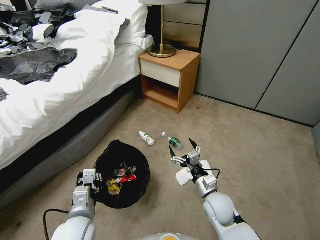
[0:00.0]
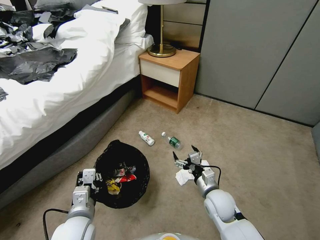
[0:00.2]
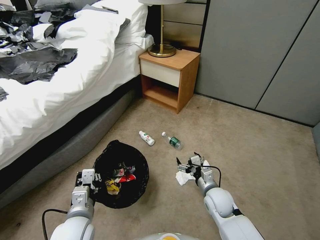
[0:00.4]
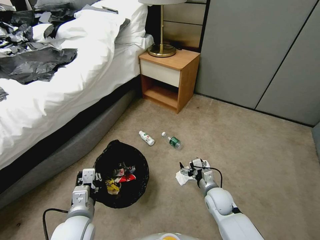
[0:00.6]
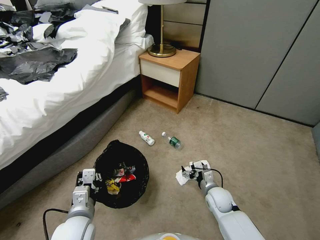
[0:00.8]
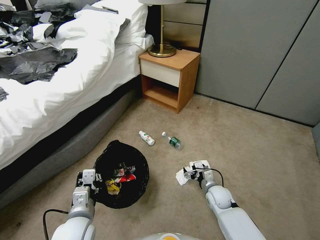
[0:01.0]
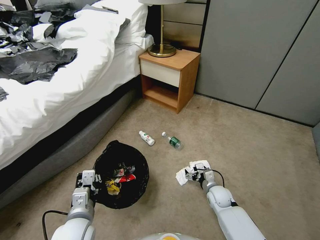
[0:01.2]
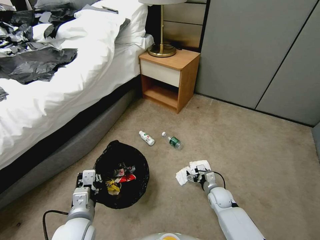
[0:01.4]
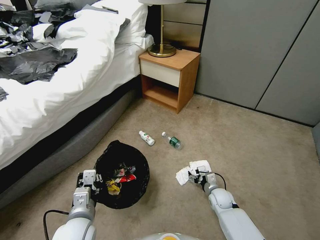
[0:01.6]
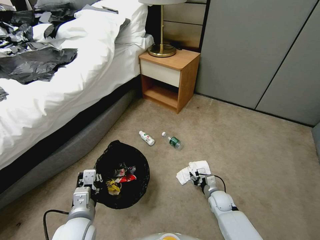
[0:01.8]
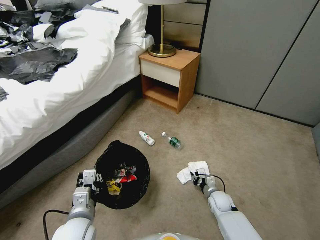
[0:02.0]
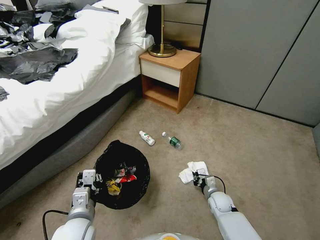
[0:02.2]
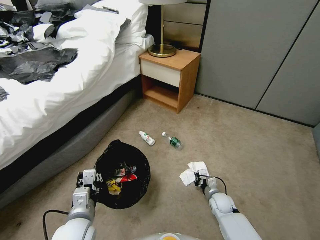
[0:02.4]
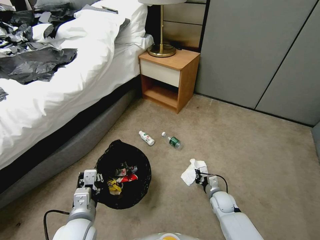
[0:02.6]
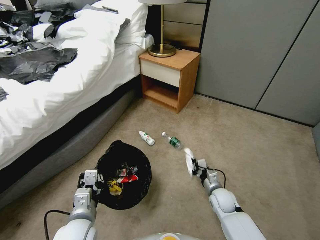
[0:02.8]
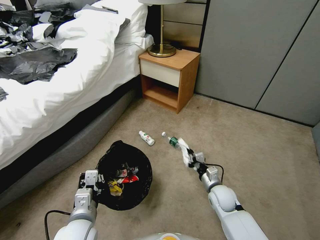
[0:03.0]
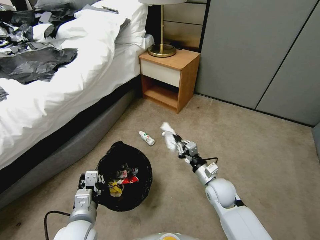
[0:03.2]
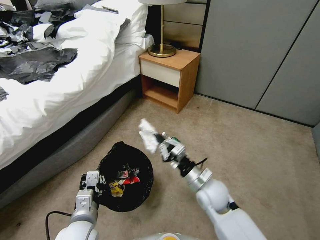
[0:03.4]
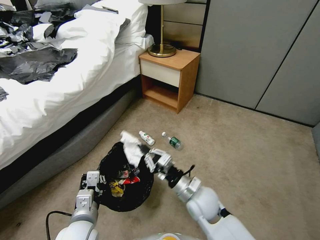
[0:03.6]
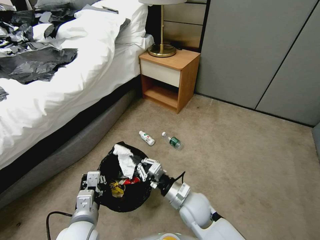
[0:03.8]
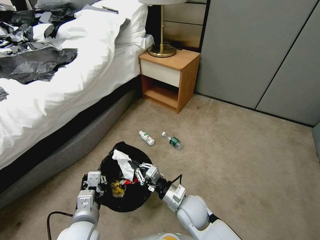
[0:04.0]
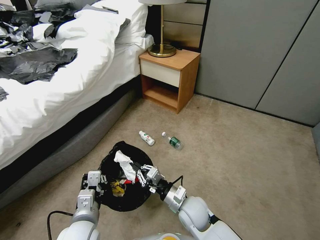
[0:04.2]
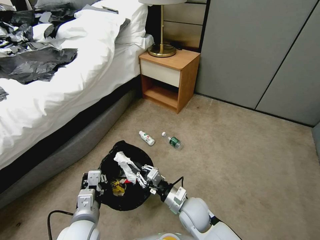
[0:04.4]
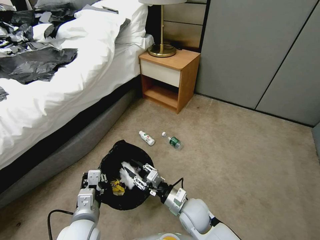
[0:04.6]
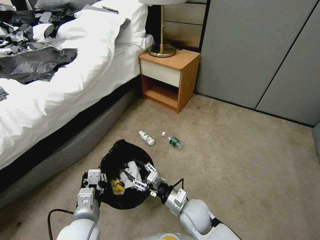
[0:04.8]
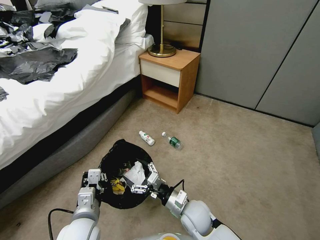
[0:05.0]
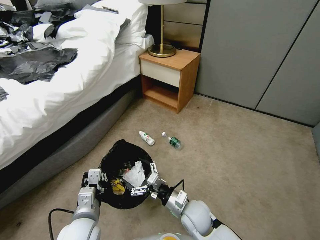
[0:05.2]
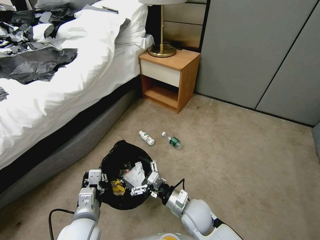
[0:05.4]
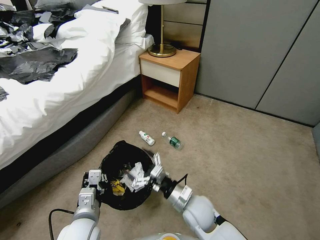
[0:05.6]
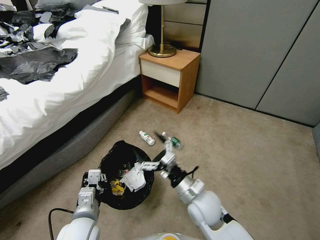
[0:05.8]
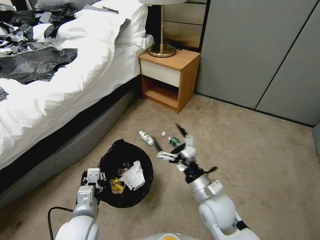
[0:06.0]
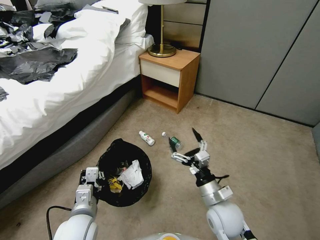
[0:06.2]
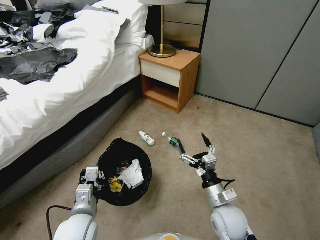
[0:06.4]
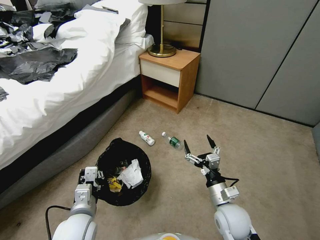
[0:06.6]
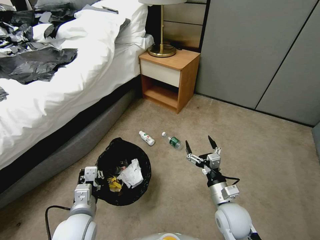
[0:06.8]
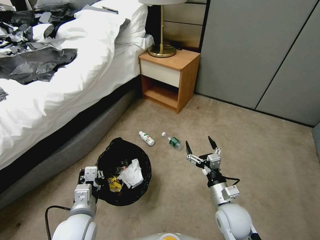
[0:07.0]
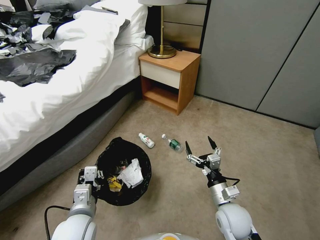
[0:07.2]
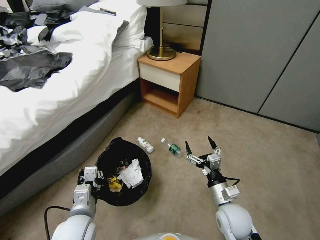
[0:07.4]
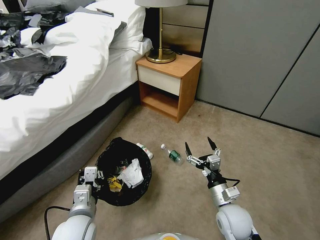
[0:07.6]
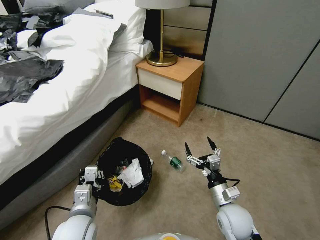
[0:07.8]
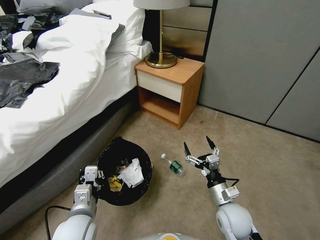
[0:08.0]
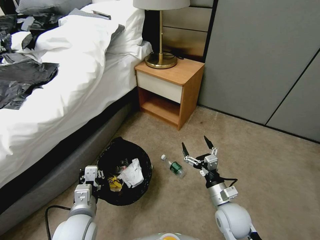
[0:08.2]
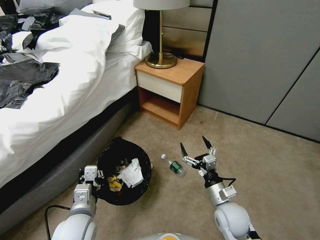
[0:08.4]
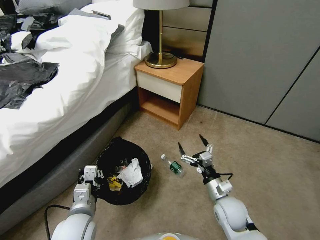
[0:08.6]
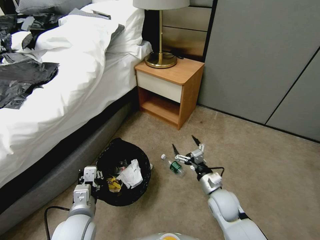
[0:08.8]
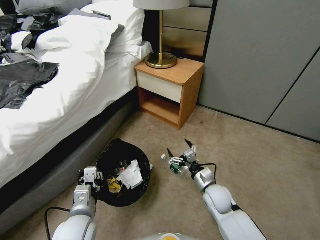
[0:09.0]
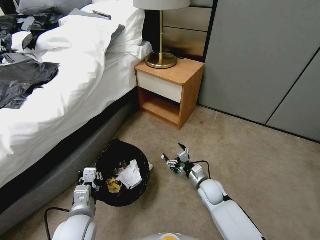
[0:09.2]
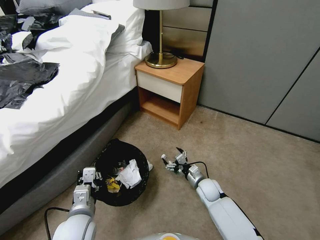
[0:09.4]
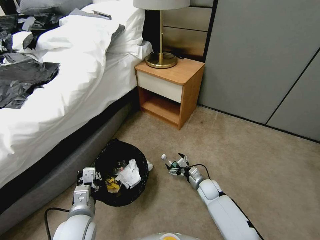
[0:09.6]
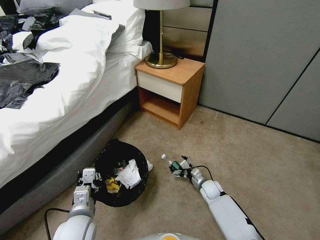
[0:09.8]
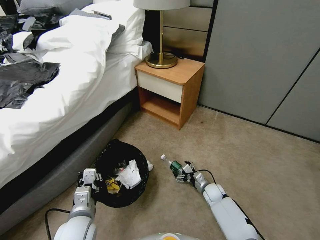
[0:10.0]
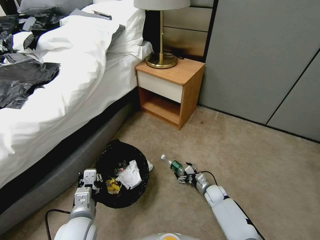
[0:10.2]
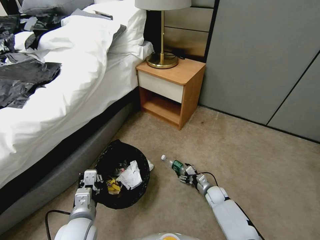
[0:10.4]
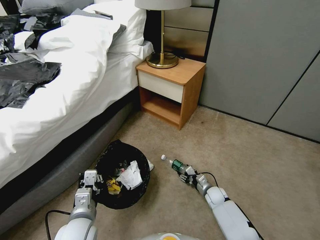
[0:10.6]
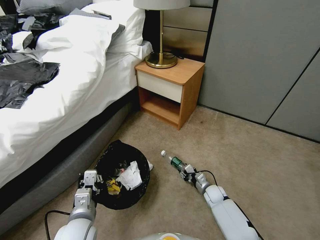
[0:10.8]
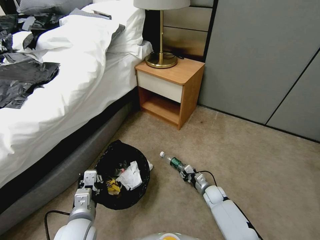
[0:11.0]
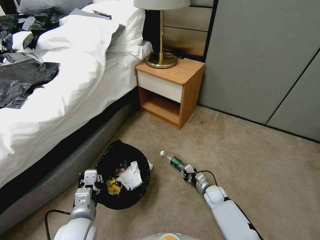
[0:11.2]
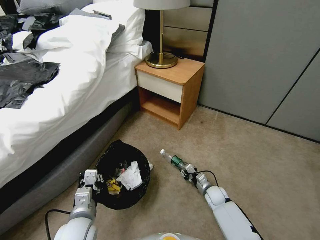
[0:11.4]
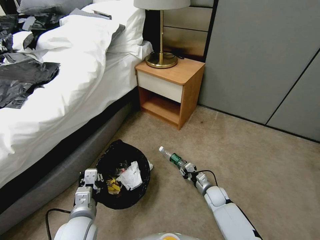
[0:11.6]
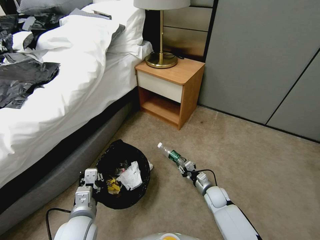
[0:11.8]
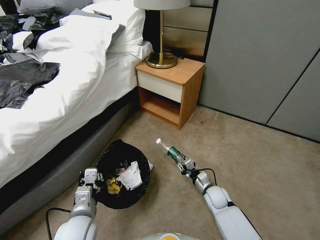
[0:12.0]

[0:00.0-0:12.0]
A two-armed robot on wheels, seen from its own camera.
Task of the whole recording: Pick up the trash bin, then pick up the garbage from the floor and place it into the trash bin.
0:00.0 to 0:01.6: The right gripper is displaced downward, to the right and forward by about 15 cm.
0:01.6 to 0:03.0: The right gripper goes approximately 10 cm upward, and closes up.
0:03.0 to 0:04.4: The right gripper goes roughly 15 cm to the left and backward.
0:04.4 to 0:06.0: The right gripper heads upward and to the right, covering approximately 10 cm, and opens its fingers.
0:06.0 to 0:07.6: The right gripper is displaced to the right and downward by about 10 cm.
0:07.6 to 0:09.0: The right gripper travels forward by about 10 cm.
0:09.0 to 0:10.4: The right gripper heads downward, covering some 15 cm.
0:10.4 to 0:12.0: The right gripper heads upward, covering roughly 5 cm, and closes up.

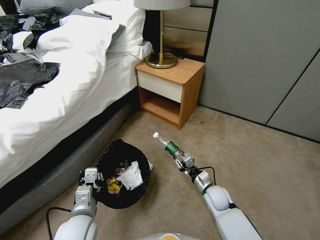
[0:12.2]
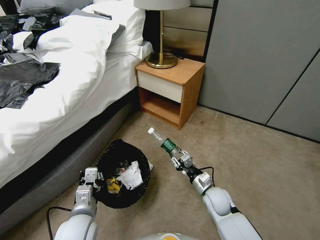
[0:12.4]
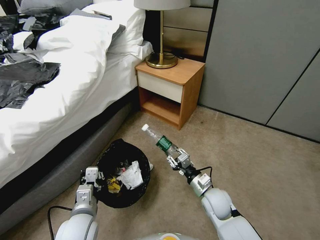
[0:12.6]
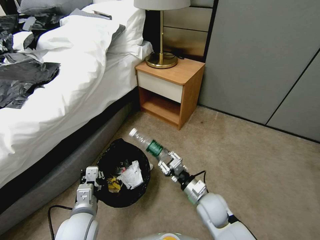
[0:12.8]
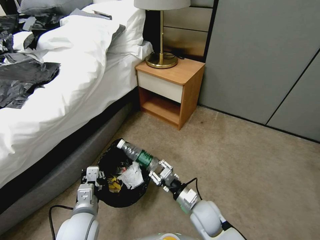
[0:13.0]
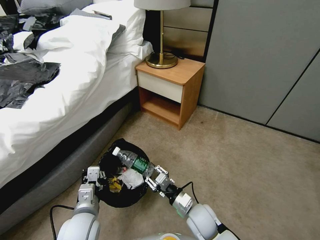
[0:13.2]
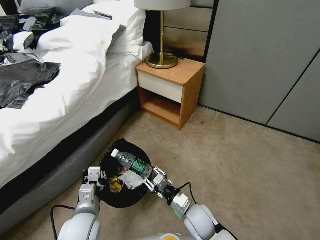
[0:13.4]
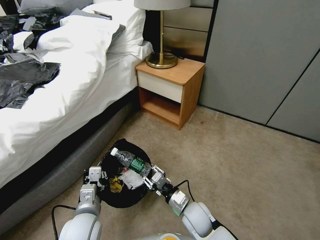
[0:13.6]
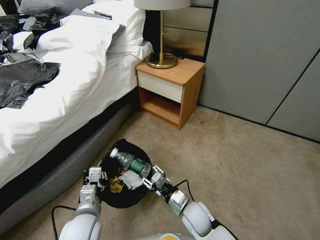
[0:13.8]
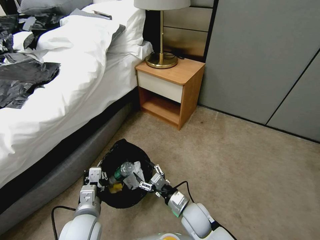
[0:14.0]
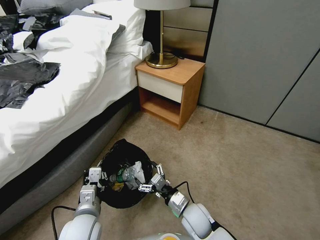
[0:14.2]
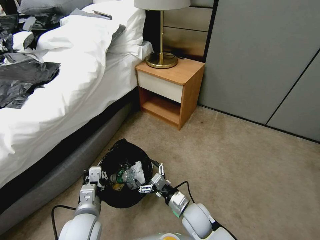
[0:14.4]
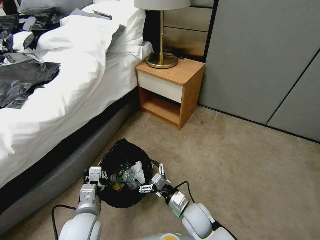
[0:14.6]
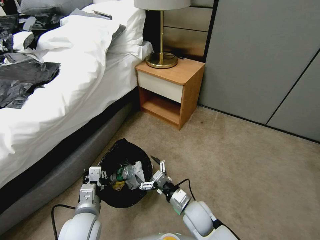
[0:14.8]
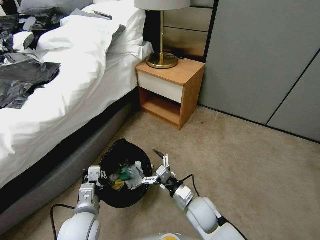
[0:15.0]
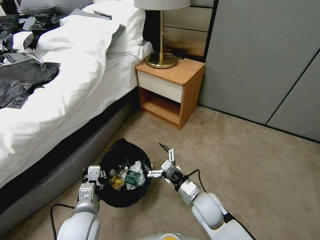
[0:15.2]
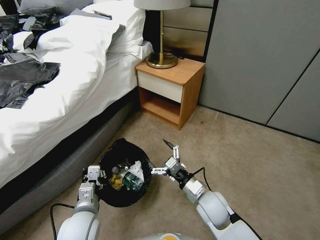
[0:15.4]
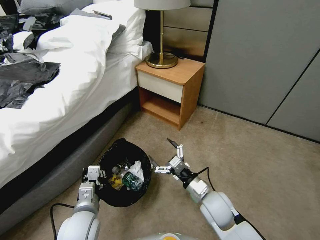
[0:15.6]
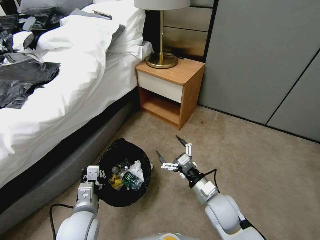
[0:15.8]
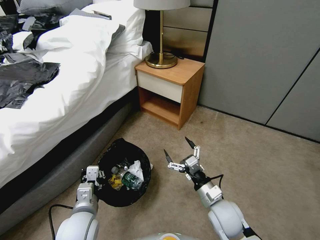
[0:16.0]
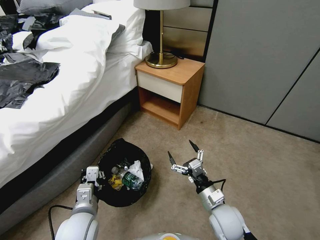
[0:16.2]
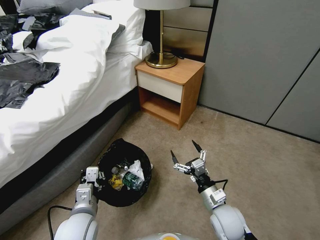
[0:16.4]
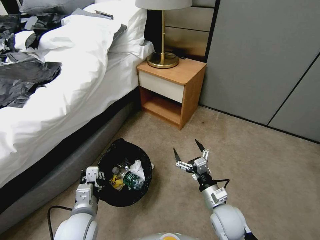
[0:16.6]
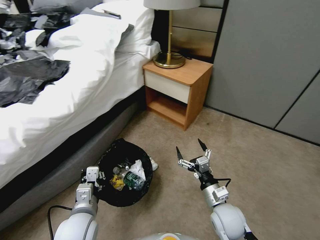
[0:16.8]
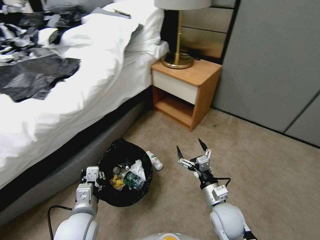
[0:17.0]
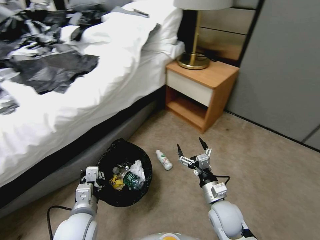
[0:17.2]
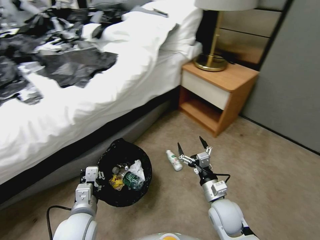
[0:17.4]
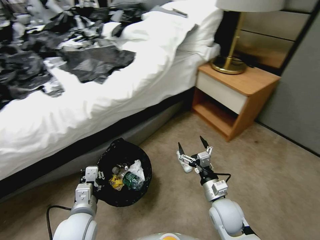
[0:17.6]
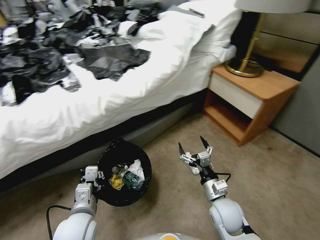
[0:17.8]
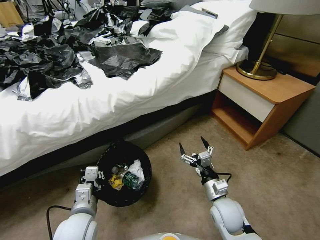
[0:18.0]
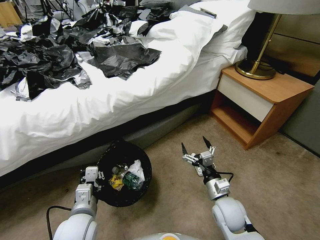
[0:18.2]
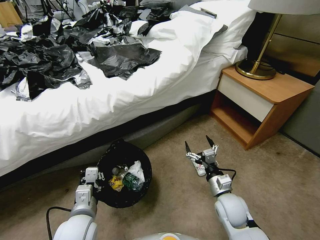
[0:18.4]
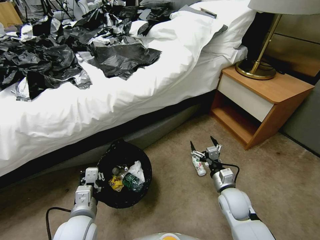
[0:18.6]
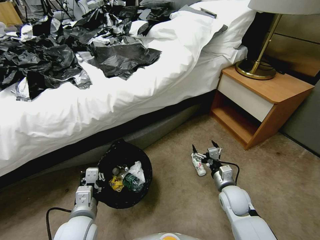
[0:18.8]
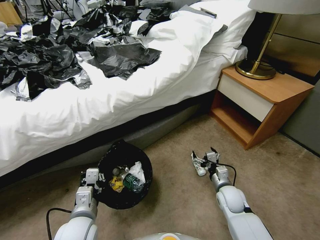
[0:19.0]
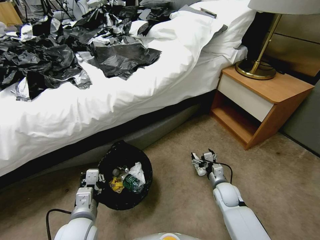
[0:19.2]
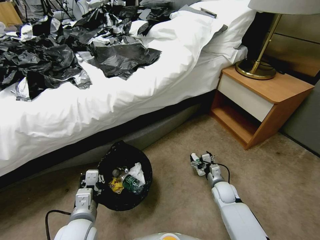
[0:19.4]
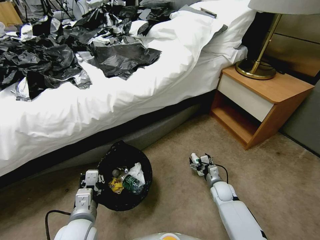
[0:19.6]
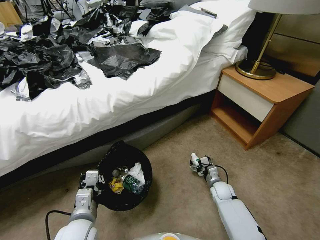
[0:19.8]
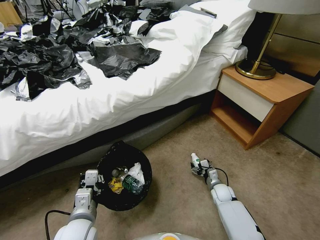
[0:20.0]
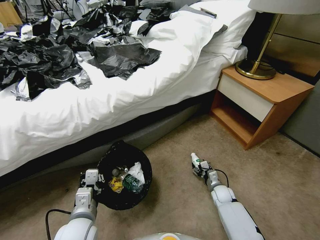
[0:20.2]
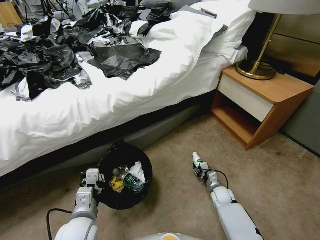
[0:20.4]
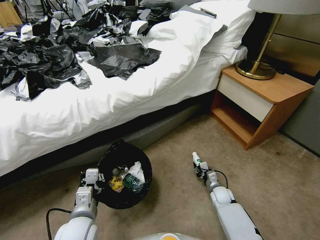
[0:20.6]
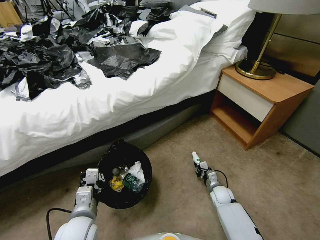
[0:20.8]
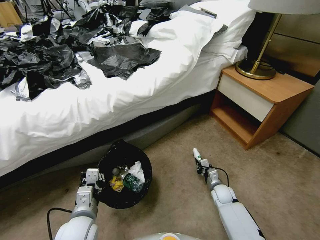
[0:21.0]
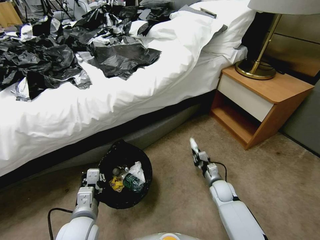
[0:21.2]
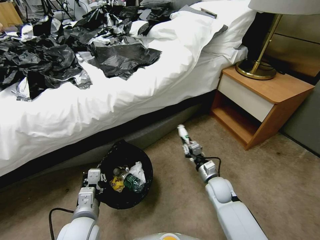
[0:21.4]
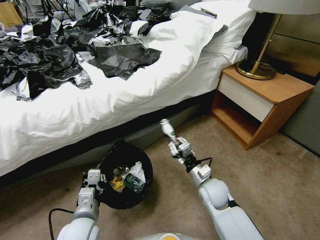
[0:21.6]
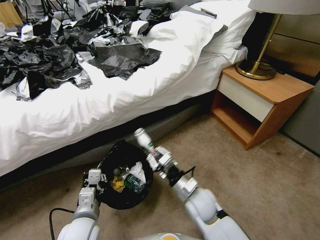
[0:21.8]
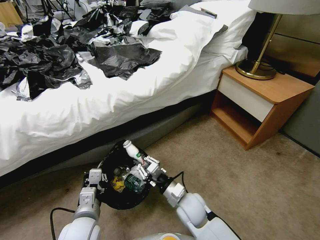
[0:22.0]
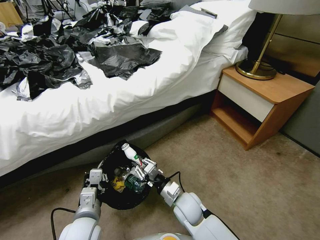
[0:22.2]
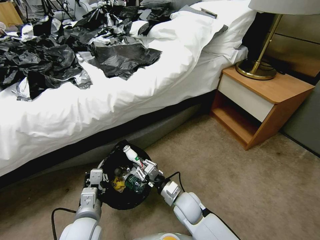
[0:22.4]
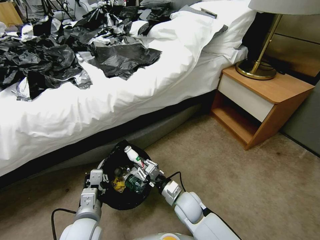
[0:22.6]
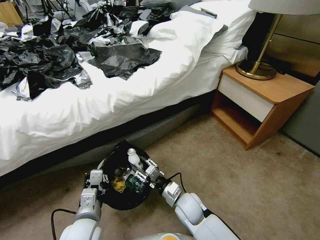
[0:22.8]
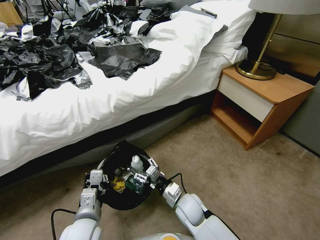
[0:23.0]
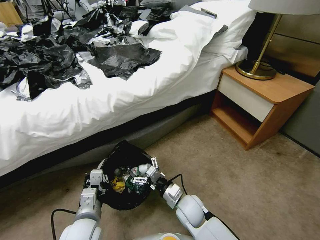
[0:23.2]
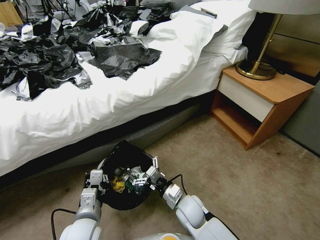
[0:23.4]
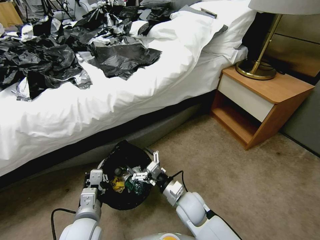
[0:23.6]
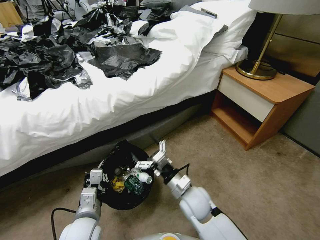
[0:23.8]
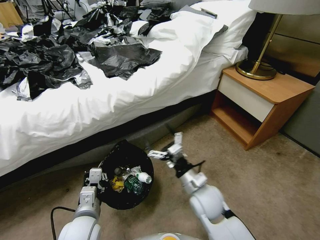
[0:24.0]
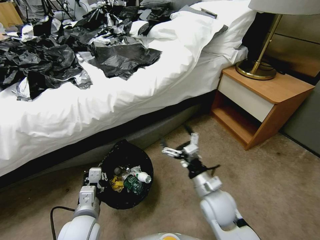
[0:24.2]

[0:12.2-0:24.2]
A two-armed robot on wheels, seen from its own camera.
Task of the whole recording: Pick up the trash bin, then pick up the garbage from the floor and place it into the trash bin.
0:12.2 to 0:13.8: The right gripper heads to the left and backward, covering about 15 cm.
0:13.8 to 0:15.2: The right gripper changes place by approximately 5 cm, and opens.
0:15.2 to 0:16.6: The right gripper travels to the right by approximately 5 cm.
0:18.2 to 0:19.8: The right gripper heads downward and forward, covering about 20 cm.
0:19.8 to 0:21.2: The right gripper closes up.
0:21.2 to 0:22.6: The right gripper goes some 20 cm to the left, backward and upward.
0:22.6 to 0:24.2: The right gripper moves upward, roughly 10 cm, and opens its fingers.
